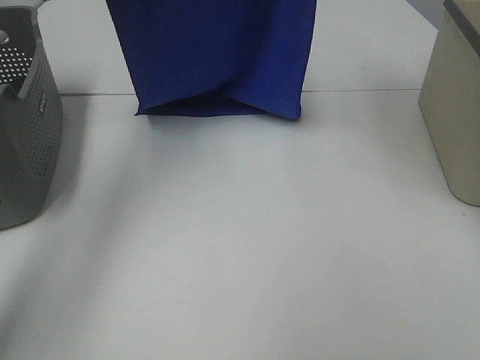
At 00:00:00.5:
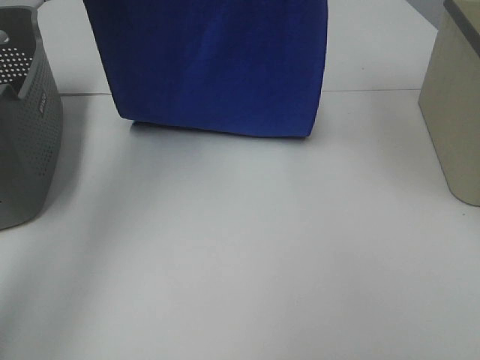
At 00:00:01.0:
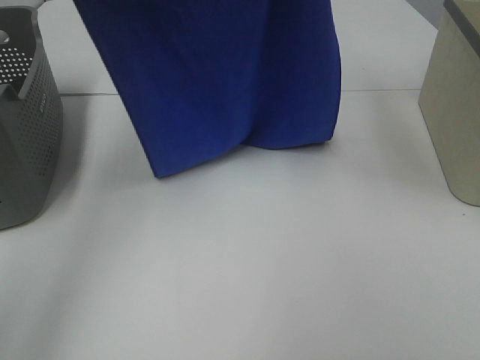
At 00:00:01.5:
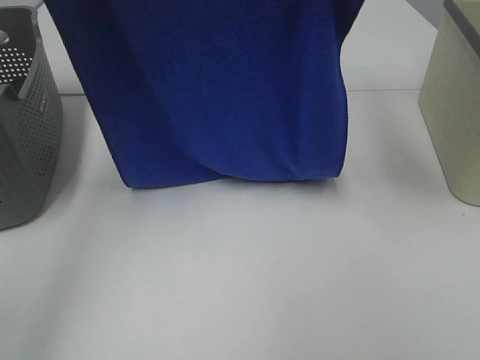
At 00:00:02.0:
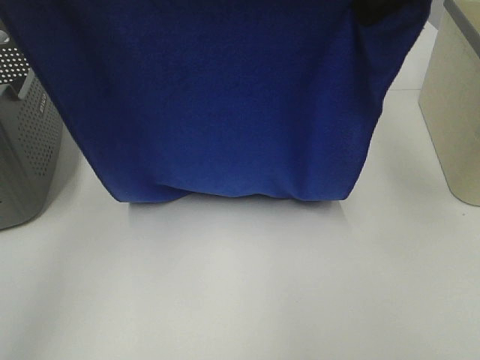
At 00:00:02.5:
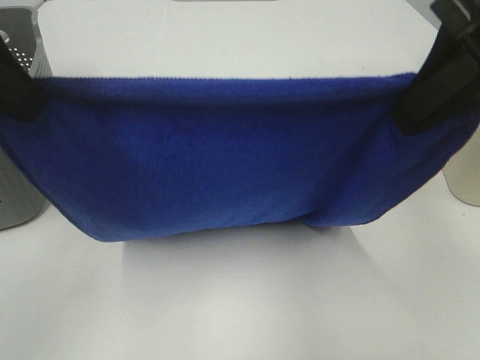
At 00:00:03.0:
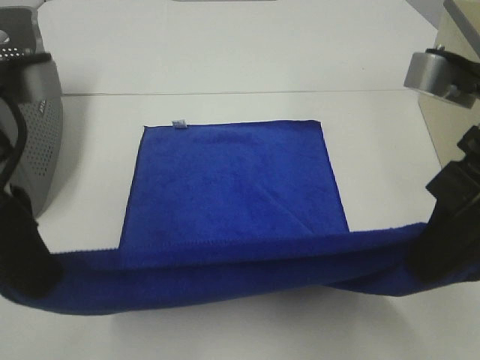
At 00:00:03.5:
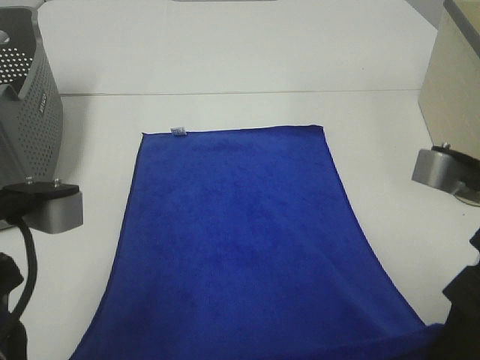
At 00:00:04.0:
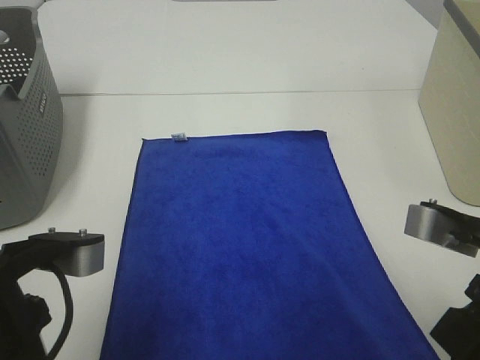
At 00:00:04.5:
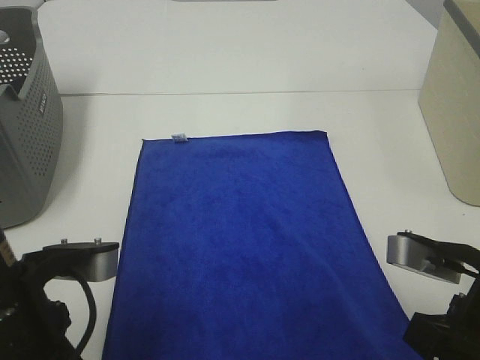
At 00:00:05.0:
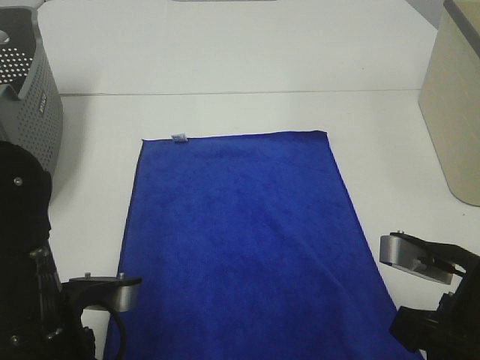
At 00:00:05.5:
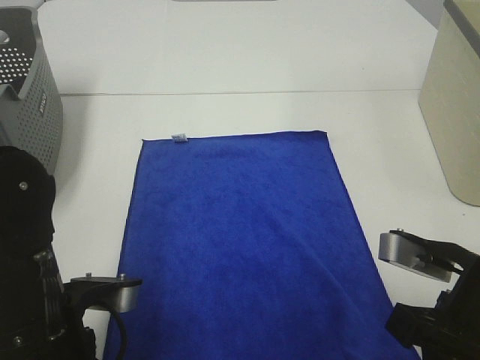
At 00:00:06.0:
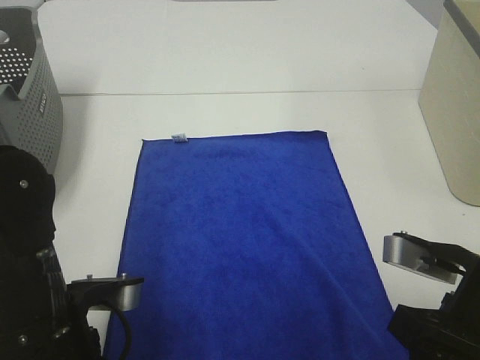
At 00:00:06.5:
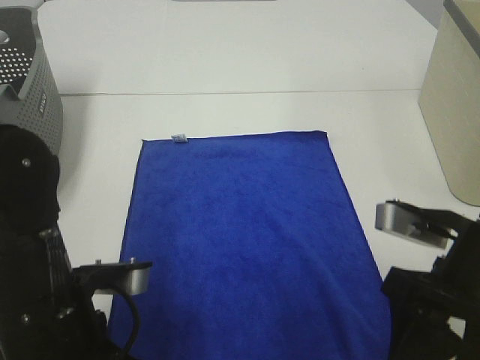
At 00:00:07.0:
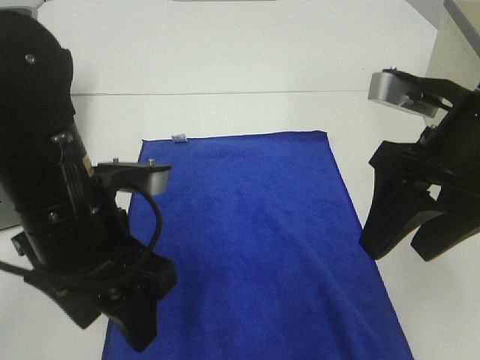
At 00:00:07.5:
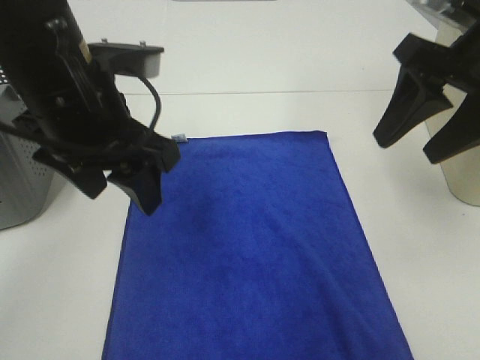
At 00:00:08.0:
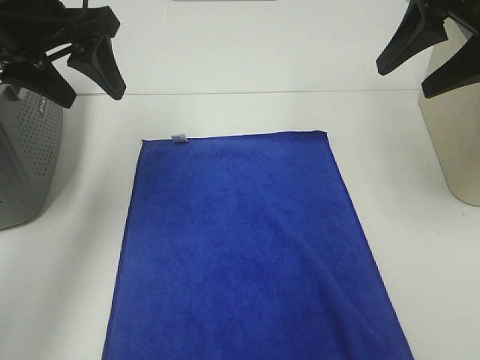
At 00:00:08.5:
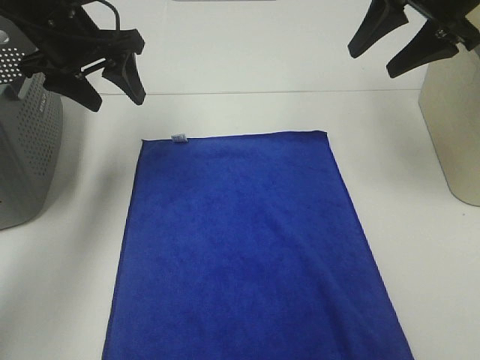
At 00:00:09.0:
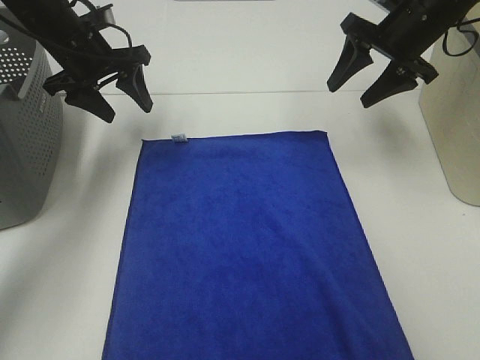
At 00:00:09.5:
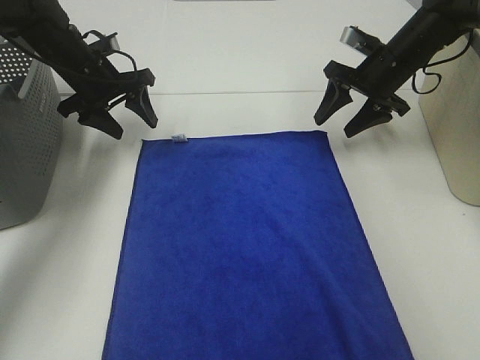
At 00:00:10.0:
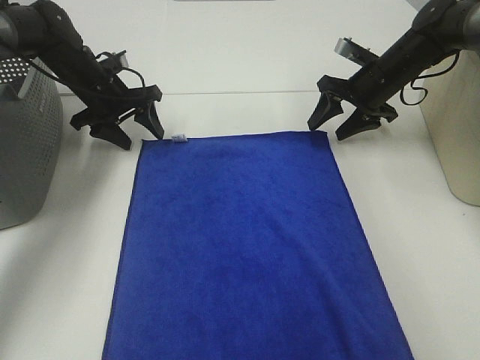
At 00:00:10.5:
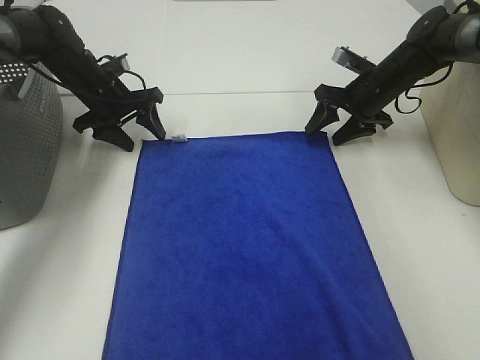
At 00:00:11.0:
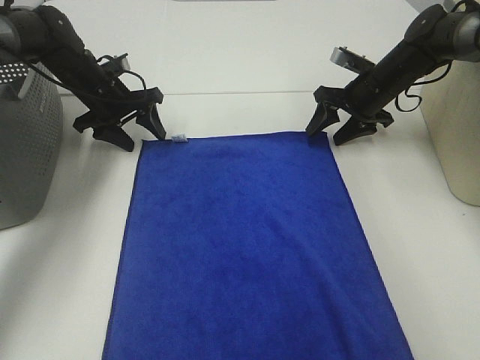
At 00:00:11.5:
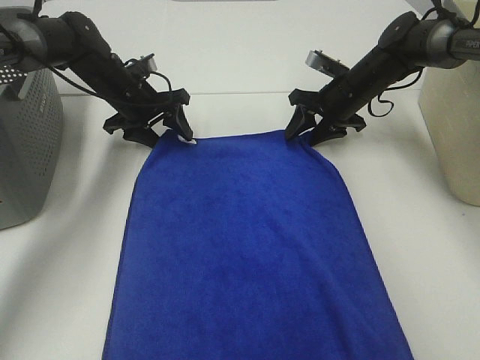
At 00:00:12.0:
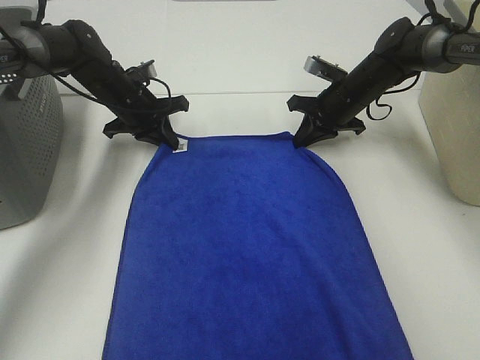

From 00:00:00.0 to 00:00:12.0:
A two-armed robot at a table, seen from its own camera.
Task of the whole recording: Remove the towel and place it.
Step, from 00:00:01.5 to 00:00:10.0: Right hand:adjust the blue towel.
From 00:00:00.0 to 00:00:02.0: The left gripper is displaced backward by approximately 15 cm, while the right gripper goes approximately 20 cm backward and downward.
From 00:00:02.0 to 00:00:04.0: Both grippers move downward and backward, some 25 cm.
From 00:00:04.0 to 00:00:06.0: The left gripper travels downward by approximately 5 cm, and opens its fingers; the right gripper opens up.
From 00:00:06.0 to 00:00:08.0: The two grippers go some 25 cm forward and upward.
From 00:00:08.0 to 00:00:10.0: Both grippers move downward and forward, some 25 cm.
From 00:00:10.0 to 00:00:12.0: The left gripper closes. The right gripper shifts by some 5 cm, and closes.

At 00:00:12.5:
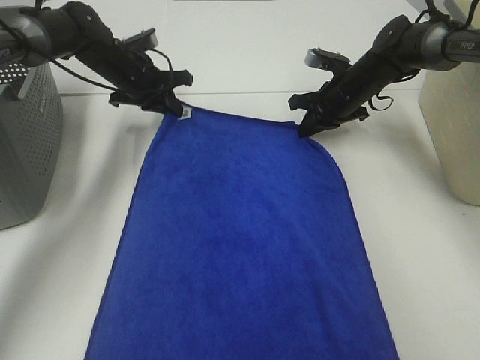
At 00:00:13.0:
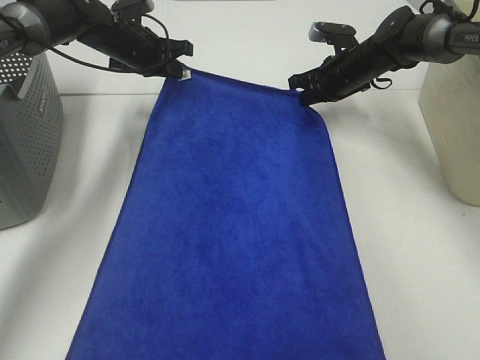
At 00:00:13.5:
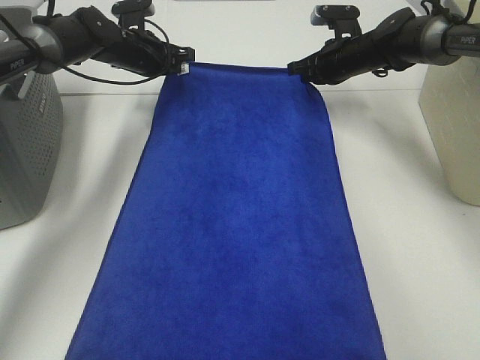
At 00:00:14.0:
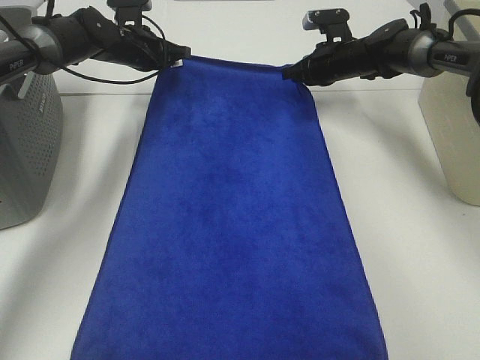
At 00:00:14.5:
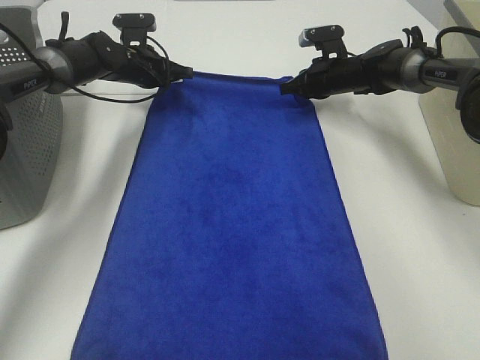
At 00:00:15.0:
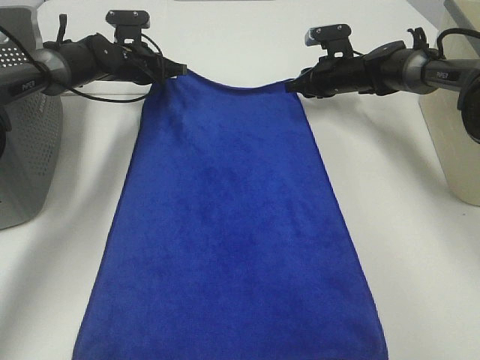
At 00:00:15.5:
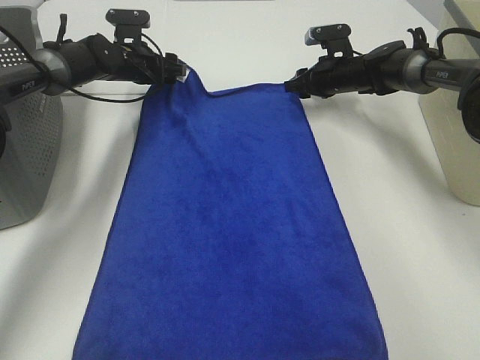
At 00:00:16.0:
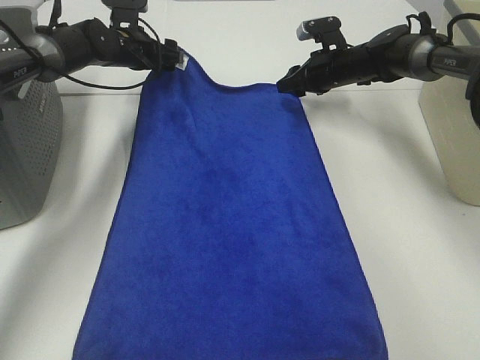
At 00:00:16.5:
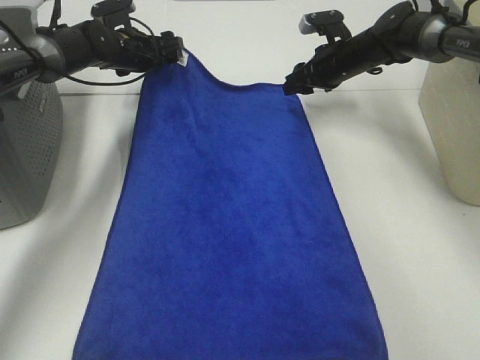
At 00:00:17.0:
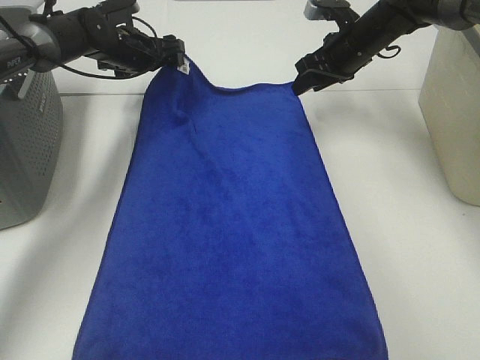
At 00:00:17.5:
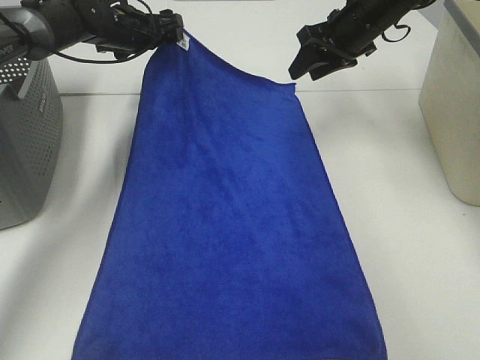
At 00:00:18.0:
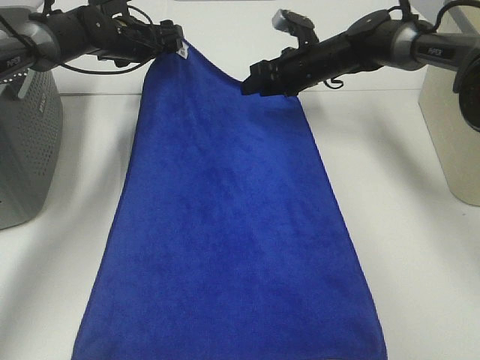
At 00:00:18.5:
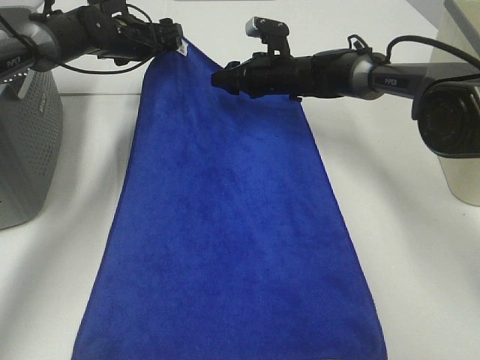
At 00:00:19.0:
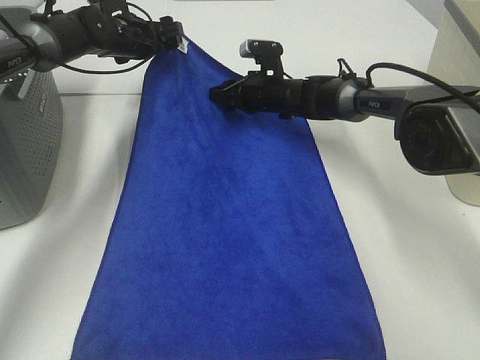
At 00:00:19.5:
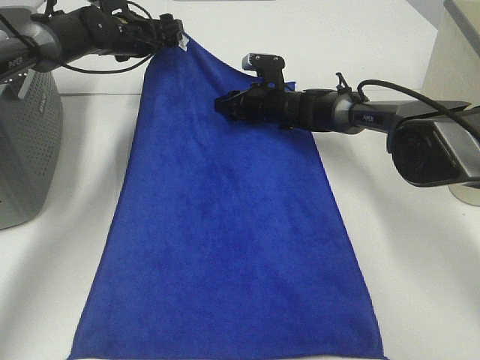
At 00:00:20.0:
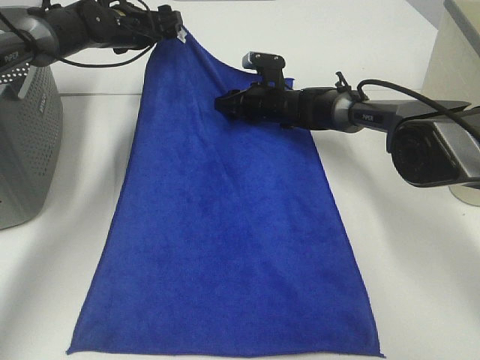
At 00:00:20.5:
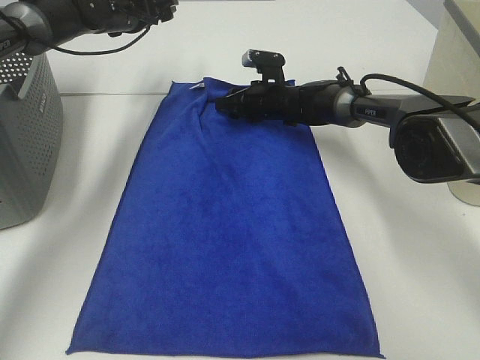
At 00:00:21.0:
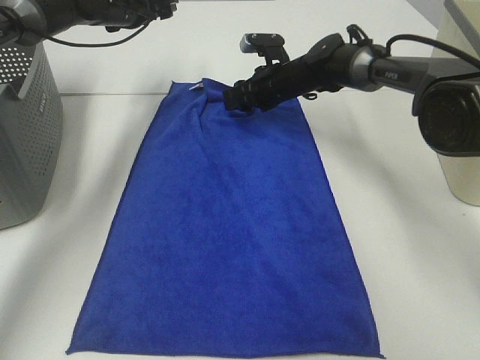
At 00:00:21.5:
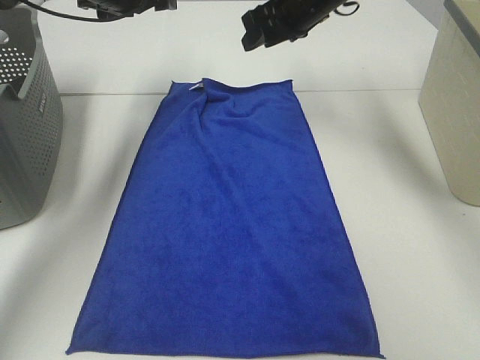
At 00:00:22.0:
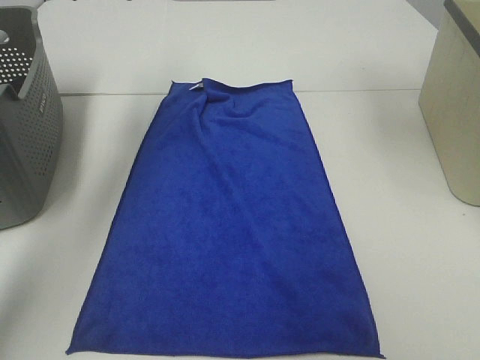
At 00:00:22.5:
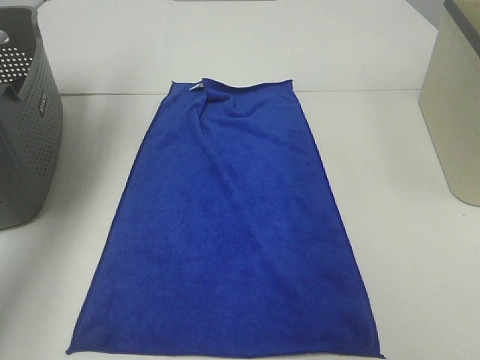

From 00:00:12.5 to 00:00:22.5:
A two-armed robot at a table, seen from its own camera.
Task of the whole recording: Remove the towel and place it.
From 00:00:12.5 to 00:00:14.5: The right gripper shifts about 5 cm forward. The left gripper moves about 5 cm.
From 00:00:14.5 to 00:00:16.5: The right gripper opens up. The left gripper opens its fingers.
From 00:00:16.5 to 00:00:18.5: The right gripper moves to the left, about 10 cm, and goes upward and returns, approximately 10 cm each way.
From 00:00:18.5 to 00:00:20.5: The right gripper travels downward by about 5 cm.
From 00:00:20.5 to 00:00:22.5: The left gripper heads upward, backward and to the left, covering about 30 cm, while the right gripper moves upward, to the right and backward, about 50 cm.

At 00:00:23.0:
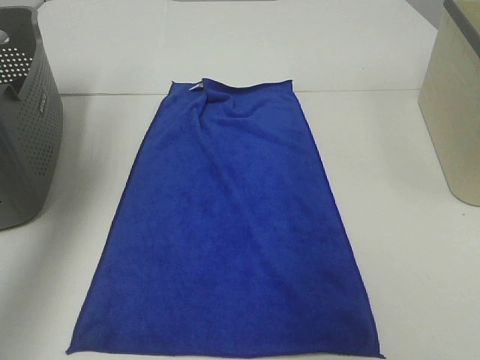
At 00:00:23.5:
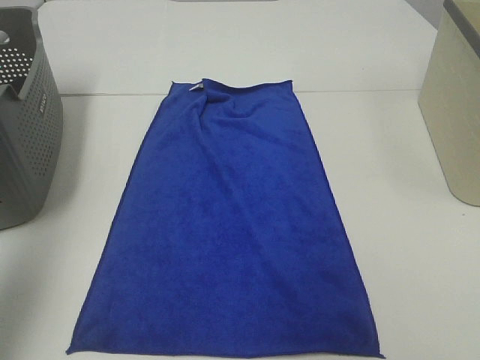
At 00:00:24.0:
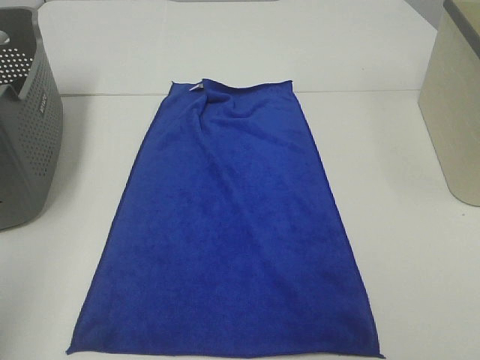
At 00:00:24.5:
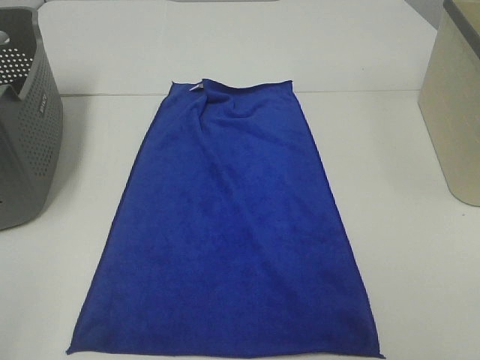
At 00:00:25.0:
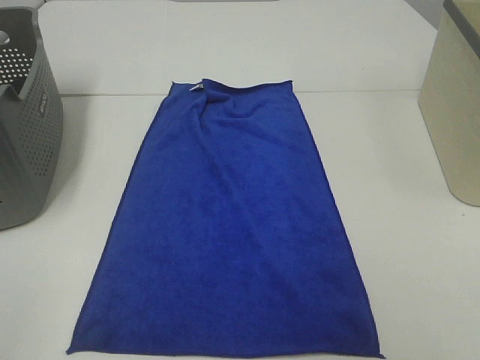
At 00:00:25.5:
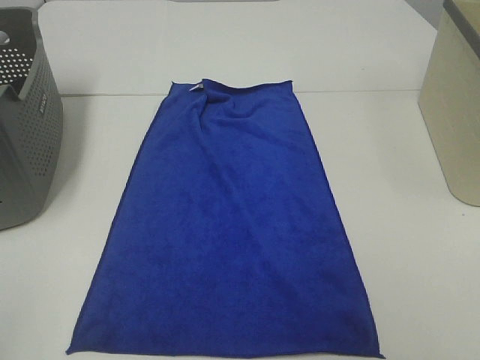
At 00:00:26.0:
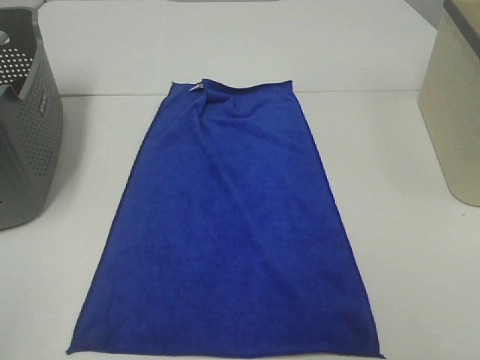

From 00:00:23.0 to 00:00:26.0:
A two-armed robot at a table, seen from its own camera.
Task of the whole recording: Remove the towel and place it.
From 00:00:23.0 to 00:00:24.5: The left gripper moves backward, roughly 35 cm.
